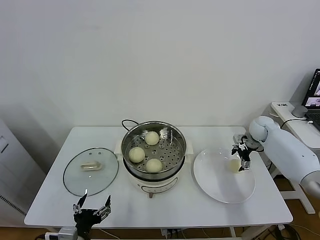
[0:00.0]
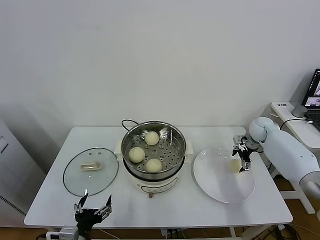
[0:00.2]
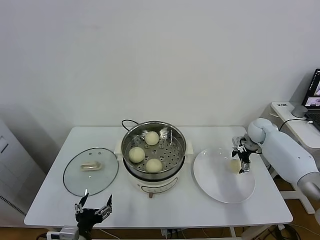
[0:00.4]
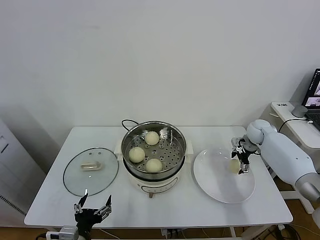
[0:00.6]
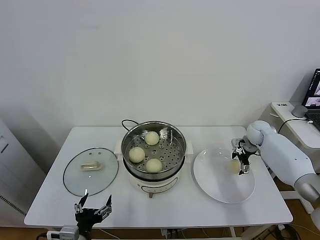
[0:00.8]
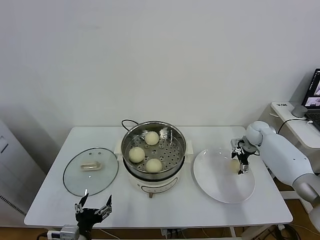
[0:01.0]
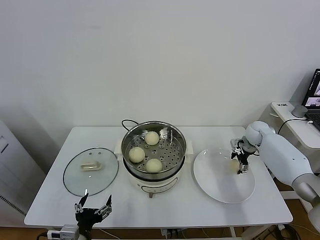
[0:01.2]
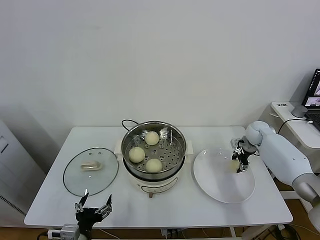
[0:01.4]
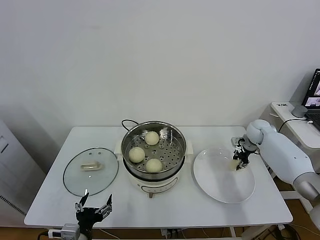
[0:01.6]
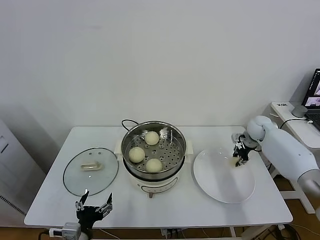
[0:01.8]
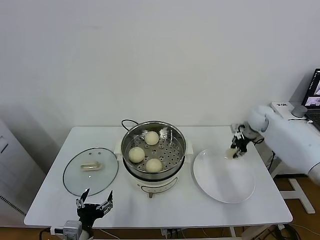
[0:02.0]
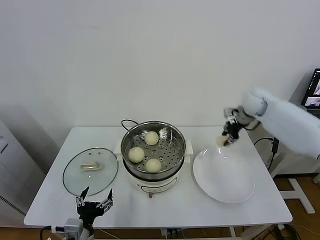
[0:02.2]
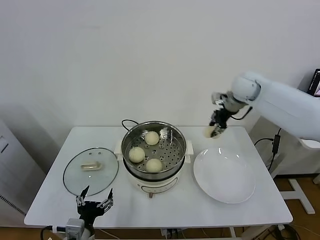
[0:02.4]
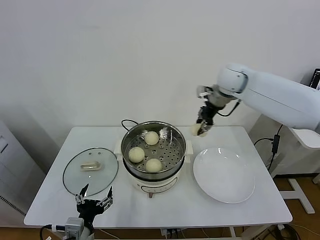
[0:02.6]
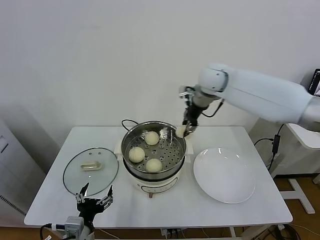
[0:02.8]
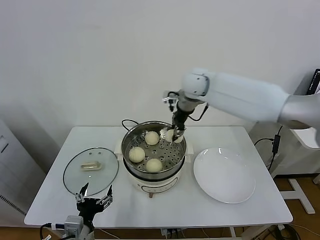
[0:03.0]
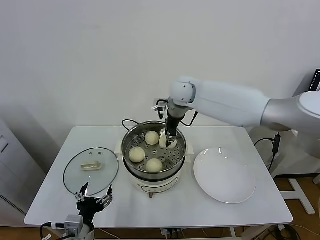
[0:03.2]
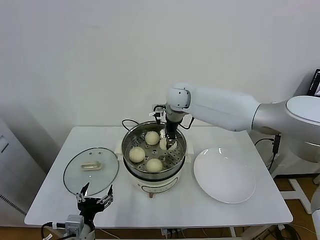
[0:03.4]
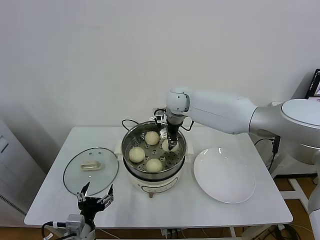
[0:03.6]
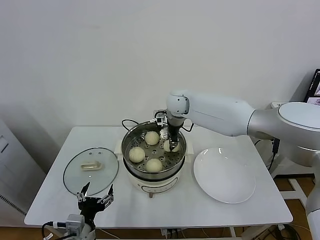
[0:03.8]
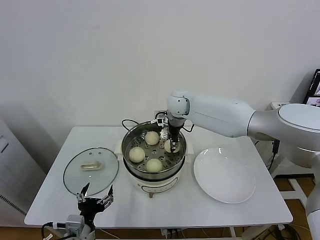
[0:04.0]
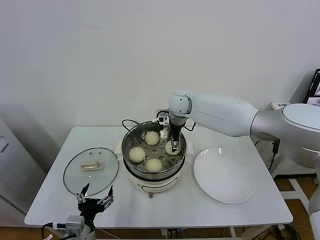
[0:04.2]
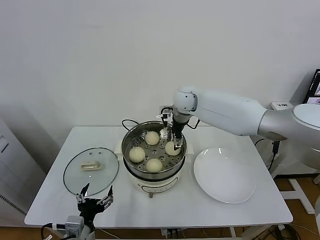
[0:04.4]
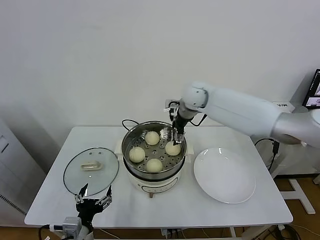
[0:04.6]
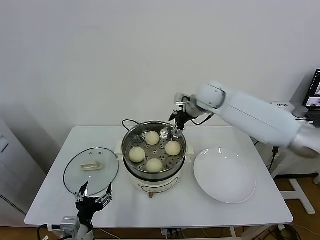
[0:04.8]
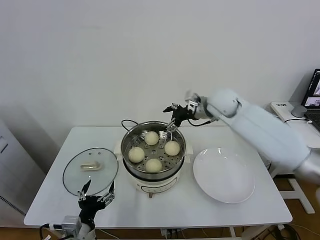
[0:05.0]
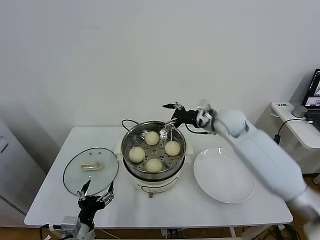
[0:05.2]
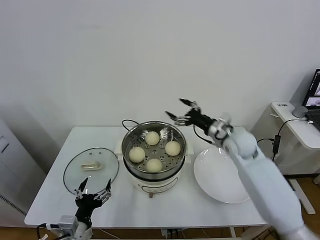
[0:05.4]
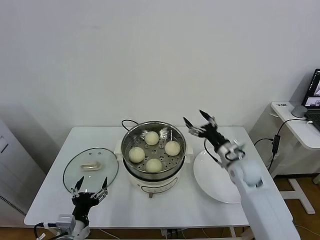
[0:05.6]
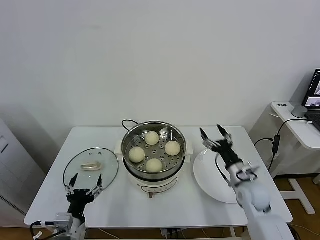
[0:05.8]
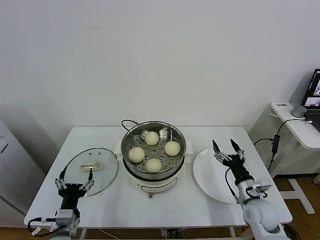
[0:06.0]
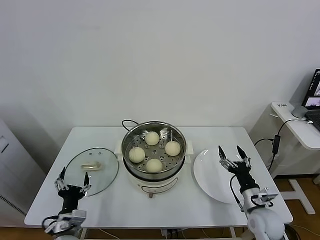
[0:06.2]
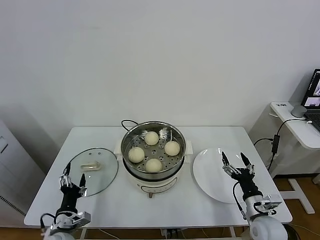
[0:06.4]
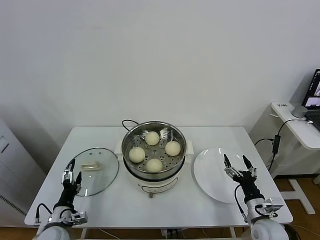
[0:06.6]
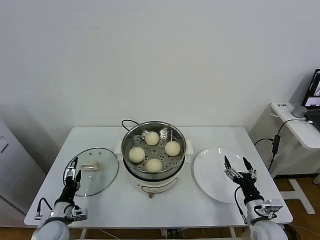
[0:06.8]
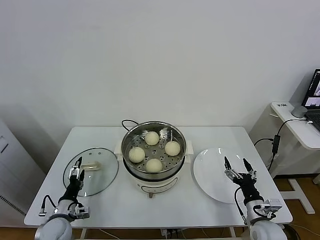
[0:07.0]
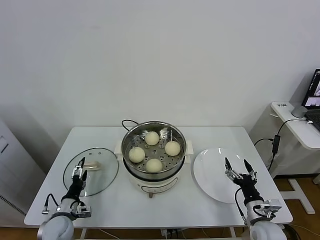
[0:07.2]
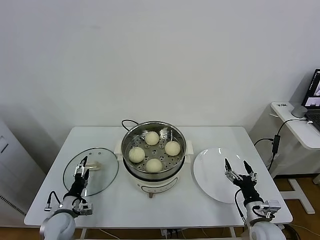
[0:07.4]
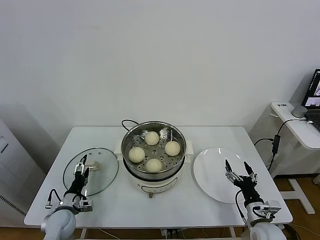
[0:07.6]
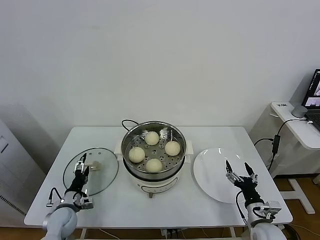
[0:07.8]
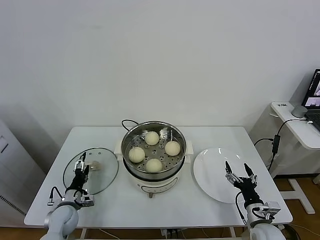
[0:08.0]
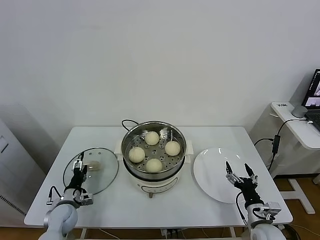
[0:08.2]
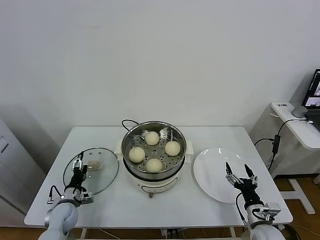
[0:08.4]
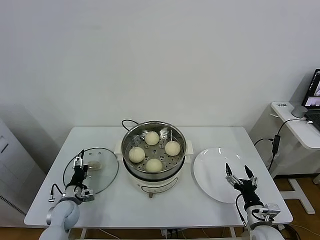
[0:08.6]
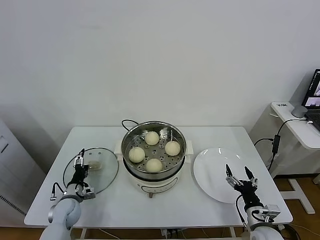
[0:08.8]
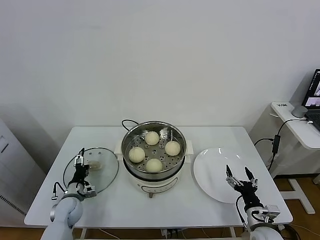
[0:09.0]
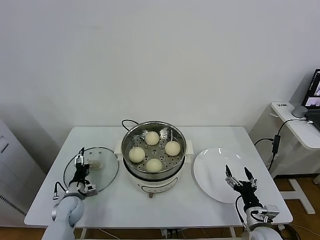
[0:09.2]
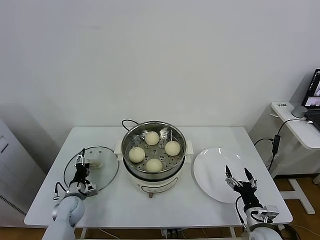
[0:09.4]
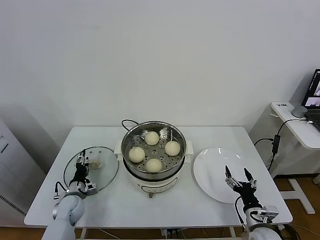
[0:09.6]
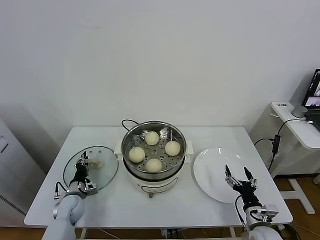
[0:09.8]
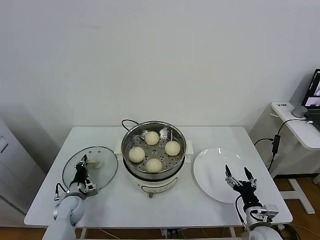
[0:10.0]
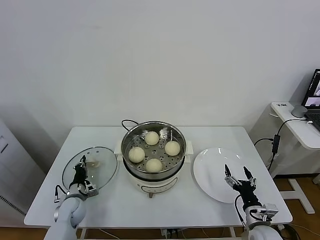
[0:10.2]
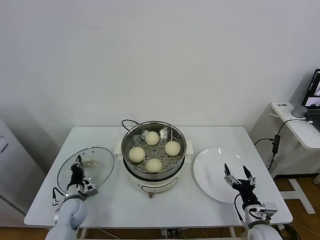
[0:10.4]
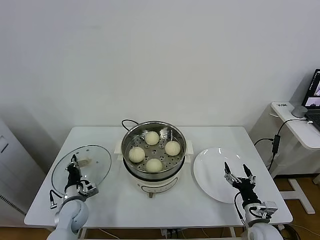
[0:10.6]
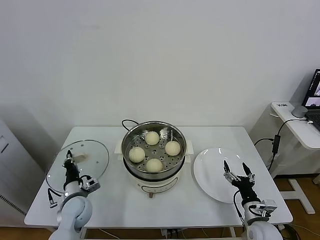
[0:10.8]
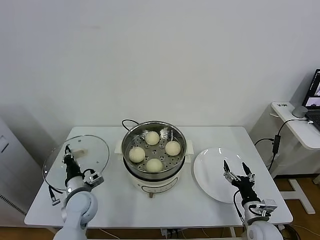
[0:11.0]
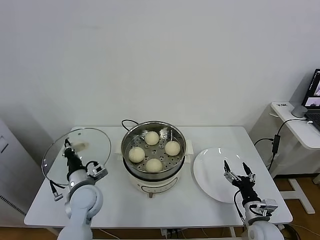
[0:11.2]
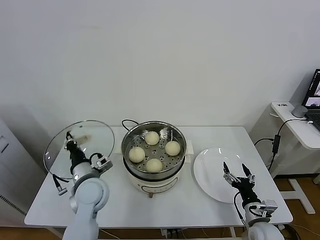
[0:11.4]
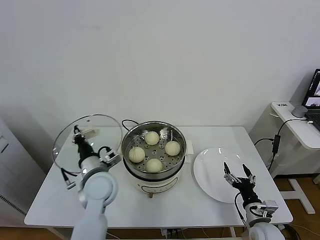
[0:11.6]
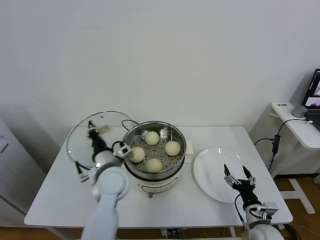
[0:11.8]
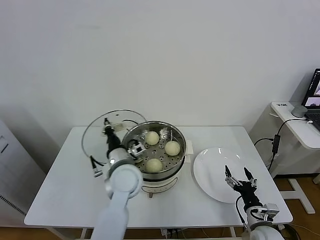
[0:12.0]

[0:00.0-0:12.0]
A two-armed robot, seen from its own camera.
Task of the whole recording: take steamed baozi put them in steamer.
Step, 0:01.8 to 0:04.2: Place the baozi on the steamer with right gripper.
Step, 0:04.6 to 0:10.2: Grasp the pot lid with left gripper.
0:00.0 to 0:01.6: The right gripper closes its fingers.
0:01.6 to 0:03.0: The right gripper is displaced to the left and upward by about 40 cm.
0:03.0 to 0:04.4: The right gripper is displaced downward by about 5 cm, and opens its fingers.
0:04.4 to 0:06.0: The right gripper goes about 40 cm backward, downward and to the right; the left gripper moves some 5 cm.
0:06.0 to 0:07.6: The left gripper heads forward, downward and to the left, covering some 15 cm, while the right gripper goes about 5 cm backward.
0:07.6 to 0:09.0: The left gripper moves forward, approximately 5 cm.
0:09.0 to 0:10.4: The left gripper closes its fingers.
0:10.4 to 0:12.0: The left gripper heads to the right and upward, covering roughly 30 cm.

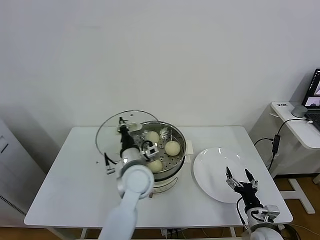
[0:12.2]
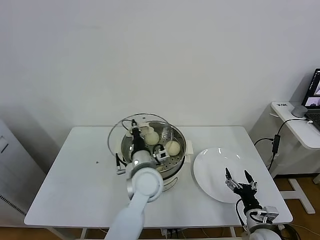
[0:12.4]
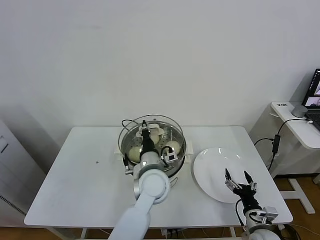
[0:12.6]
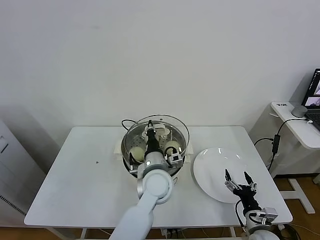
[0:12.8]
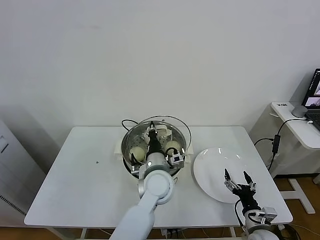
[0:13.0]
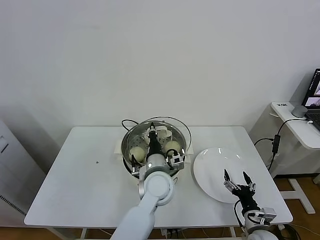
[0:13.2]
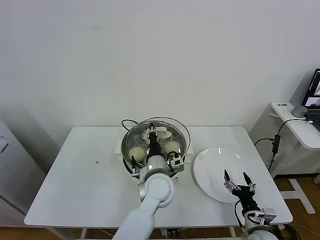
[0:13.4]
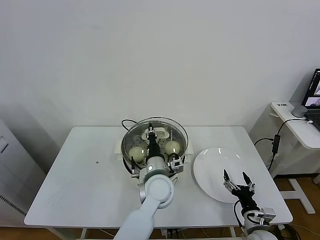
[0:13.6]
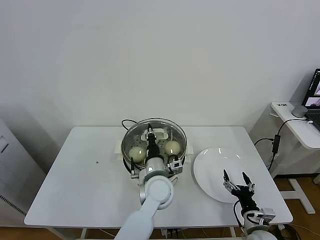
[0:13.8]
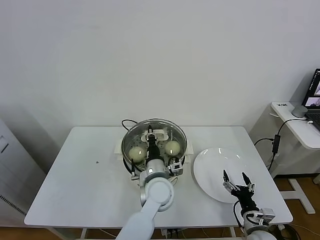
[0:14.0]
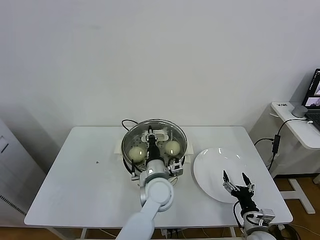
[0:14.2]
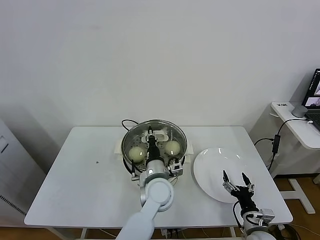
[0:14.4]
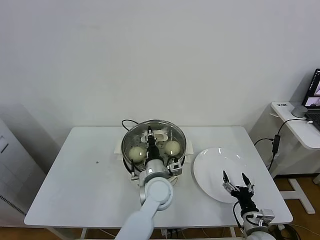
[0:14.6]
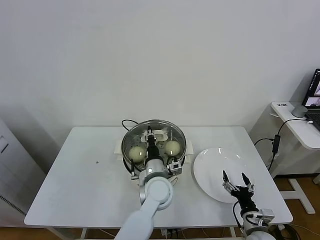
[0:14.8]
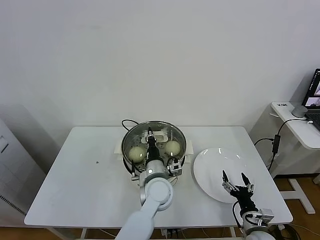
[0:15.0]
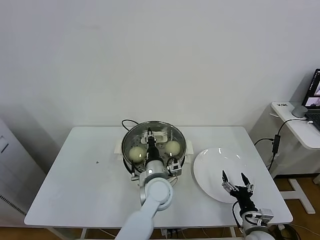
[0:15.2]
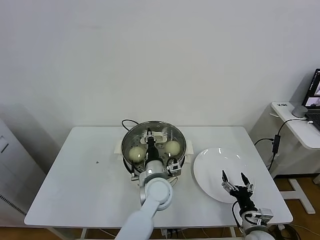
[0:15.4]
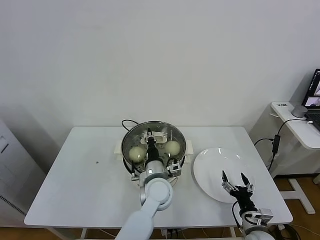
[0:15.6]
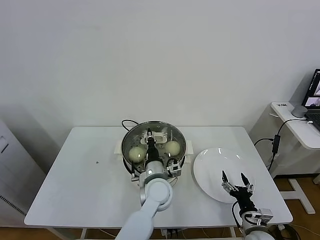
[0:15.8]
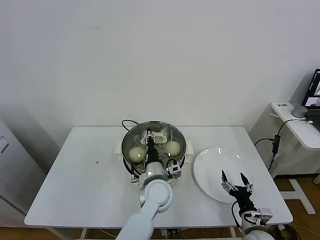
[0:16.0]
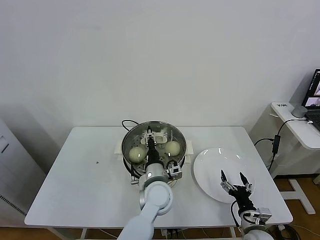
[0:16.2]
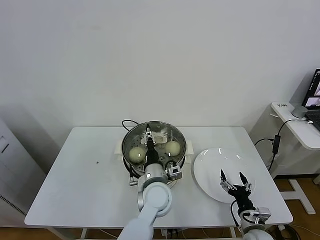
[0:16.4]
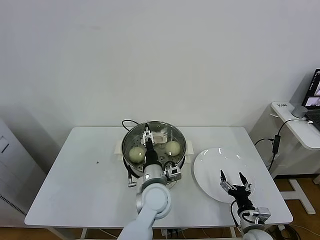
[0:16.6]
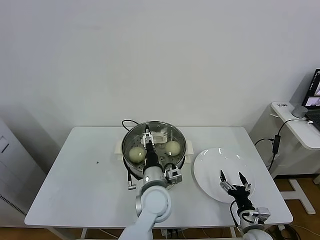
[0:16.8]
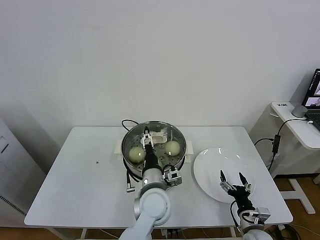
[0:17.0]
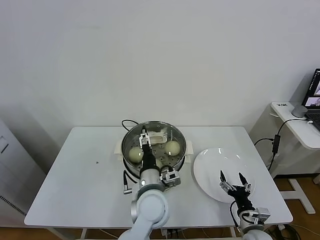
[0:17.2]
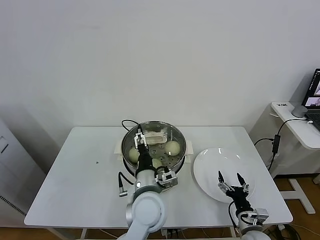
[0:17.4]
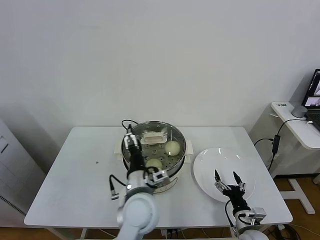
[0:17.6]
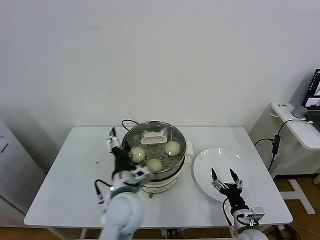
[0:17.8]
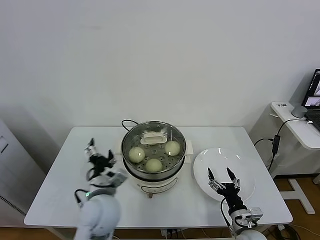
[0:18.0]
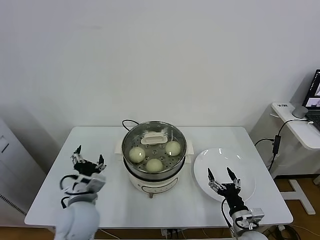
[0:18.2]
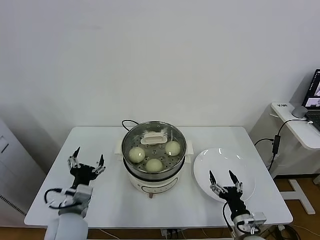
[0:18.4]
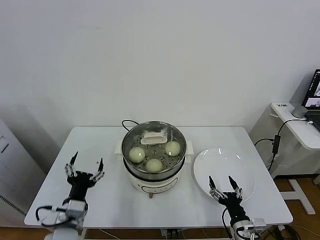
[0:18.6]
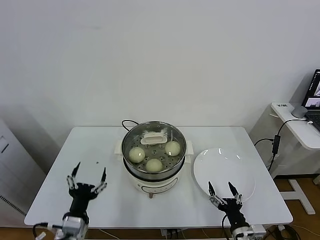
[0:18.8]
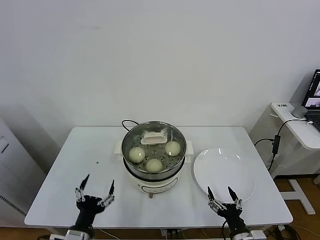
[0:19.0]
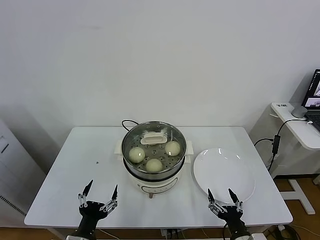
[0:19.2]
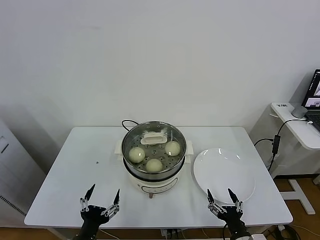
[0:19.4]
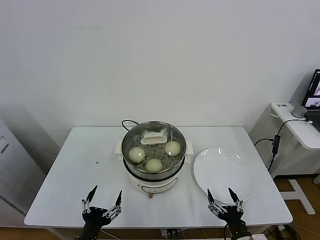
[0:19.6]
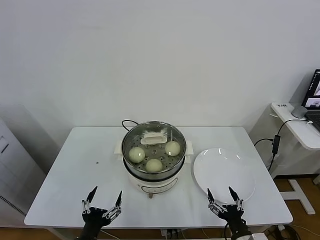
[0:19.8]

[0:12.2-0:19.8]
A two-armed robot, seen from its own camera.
Task of the whole recording: take steamed baozi put them in steamer.
Step, 0:12.2 to 0:16.6: Place the pot lid on the steamer with left gripper.
0:12.2 to 0:13.8: The left gripper goes some 5 cm to the right.
0:13.8 to 0:15.2: The grippers move only a little.
0:15.2 to 0:16.8: The left gripper opens.
0:16.8 to 0:18.2: The left gripper goes about 20 cm to the left.
0:18.2 to 0:19.8: The left gripper shifts about 15 cm backward and downward, while the right gripper goes about 10 cm backward.

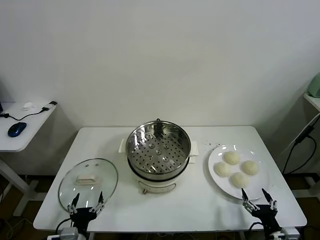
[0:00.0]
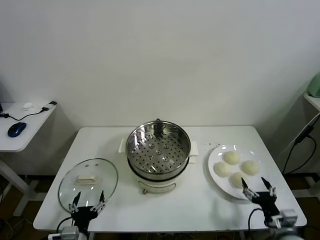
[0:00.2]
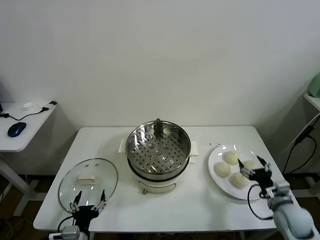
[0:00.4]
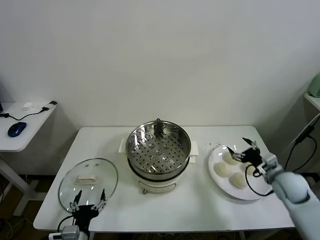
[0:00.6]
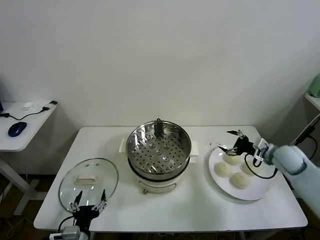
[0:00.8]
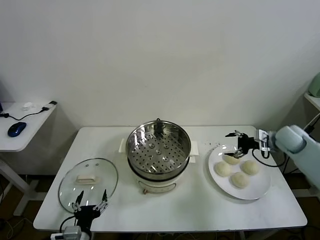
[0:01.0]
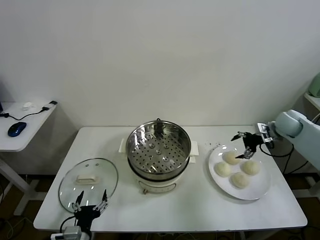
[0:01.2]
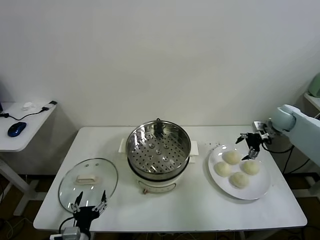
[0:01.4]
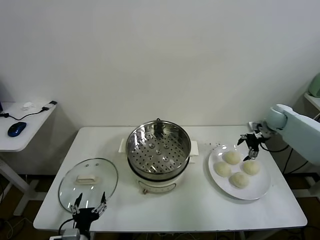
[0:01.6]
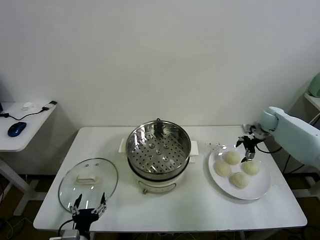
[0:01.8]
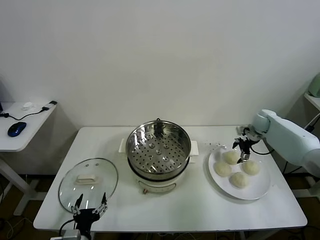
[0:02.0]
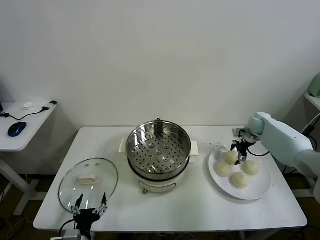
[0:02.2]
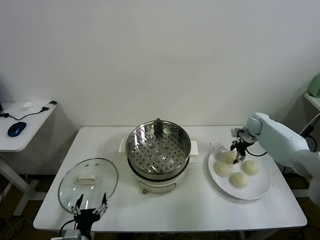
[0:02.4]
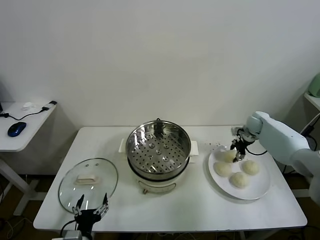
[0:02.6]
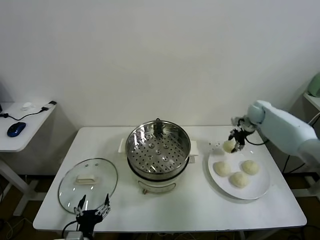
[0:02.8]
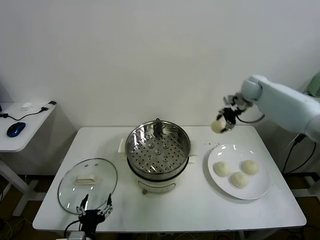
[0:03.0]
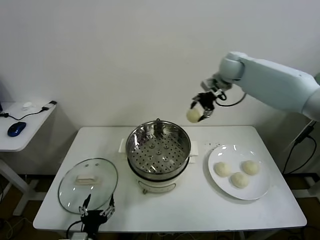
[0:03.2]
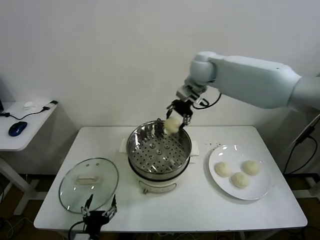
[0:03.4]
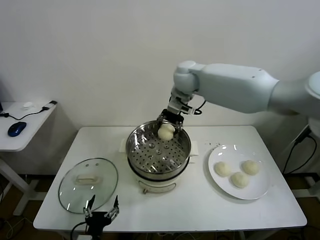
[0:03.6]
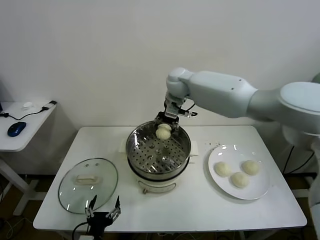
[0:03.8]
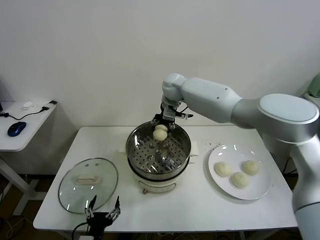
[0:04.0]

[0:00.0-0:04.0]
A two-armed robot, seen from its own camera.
Task of the whole recording: take steamed baozi put them in steamer.
Step, 0:00.0 to 0:02.4: Grasp the baozi in the plate with right gripper.
0:01.4 to 0:02.6: The right gripper heads downward, covering approximately 5 cm, and closes.
0:02.6 to 0:04.0: The right gripper travels to the left by approximately 35 cm.
